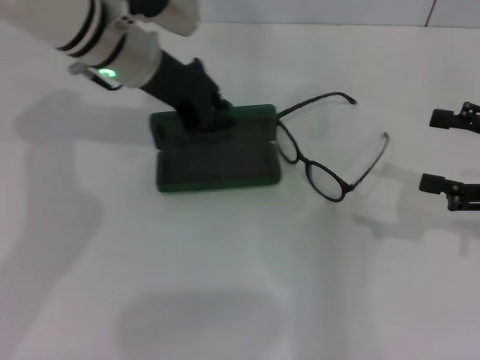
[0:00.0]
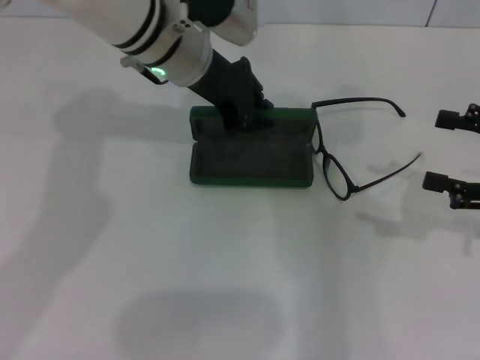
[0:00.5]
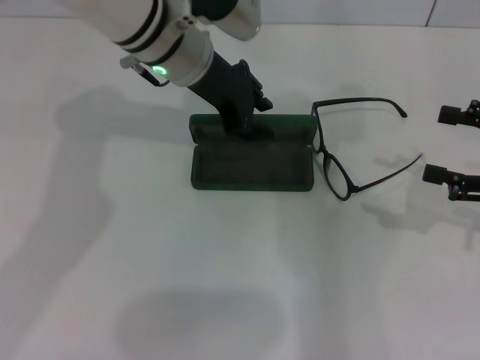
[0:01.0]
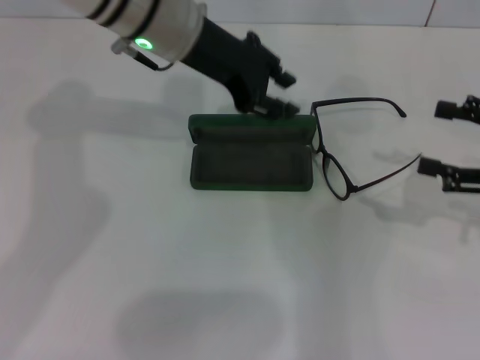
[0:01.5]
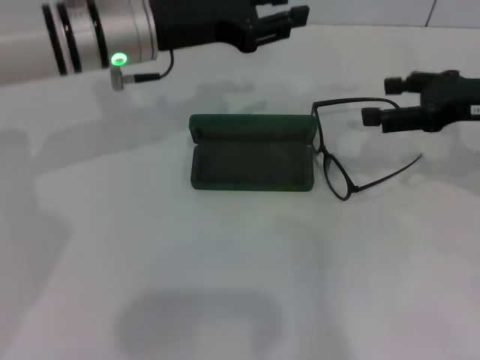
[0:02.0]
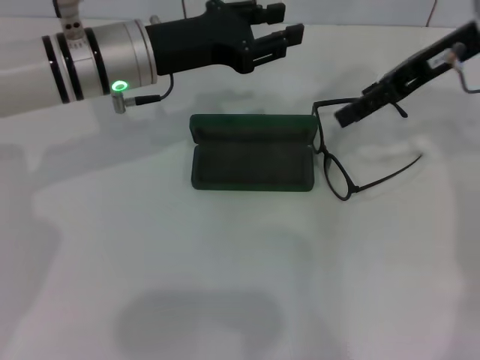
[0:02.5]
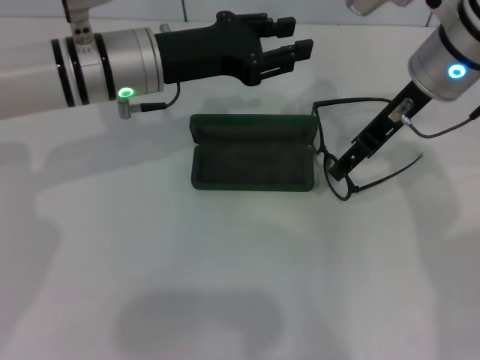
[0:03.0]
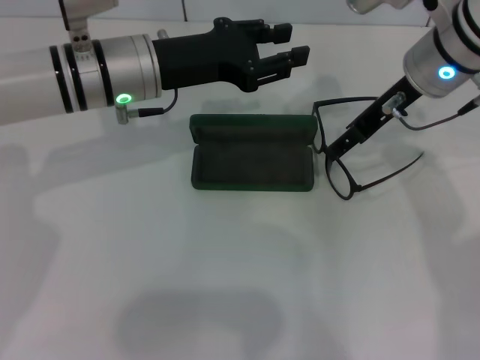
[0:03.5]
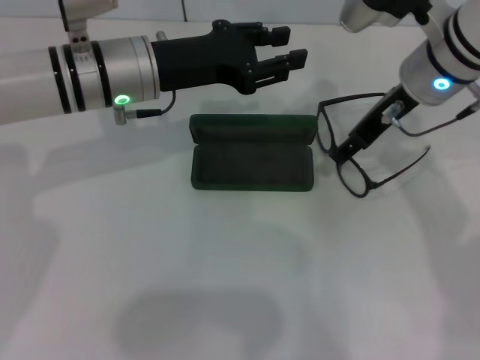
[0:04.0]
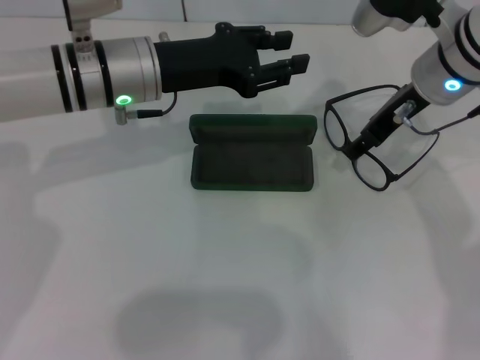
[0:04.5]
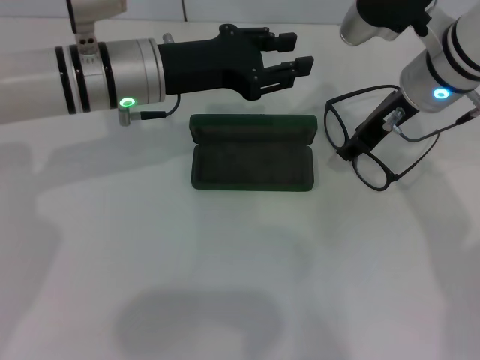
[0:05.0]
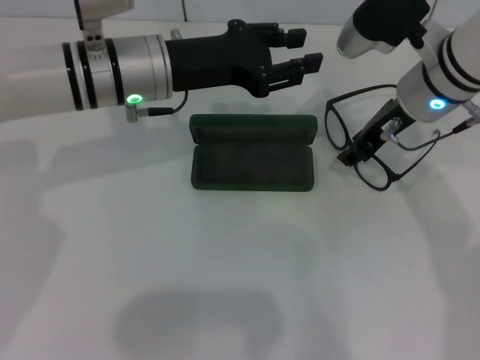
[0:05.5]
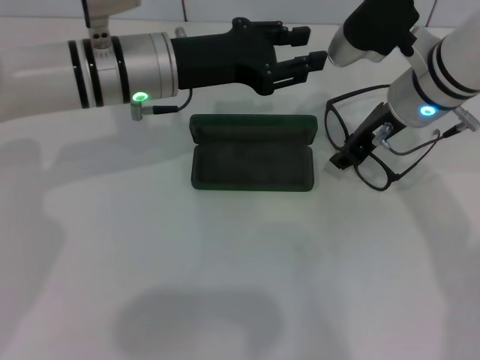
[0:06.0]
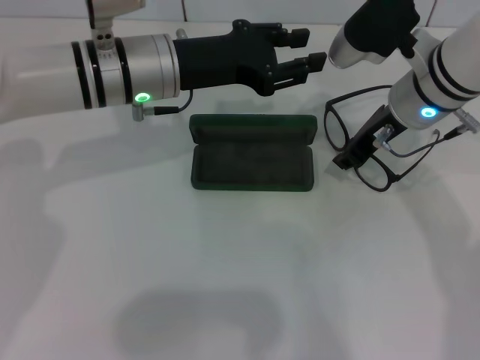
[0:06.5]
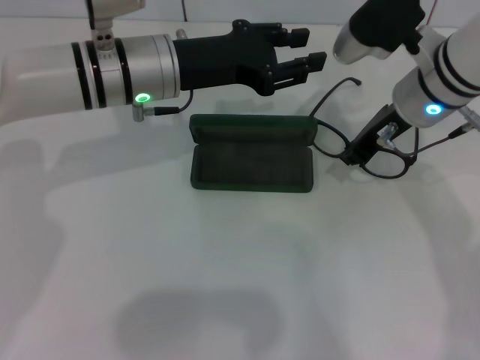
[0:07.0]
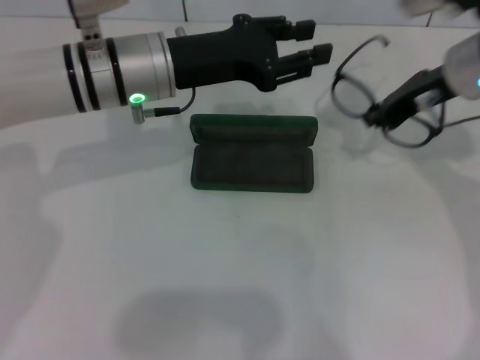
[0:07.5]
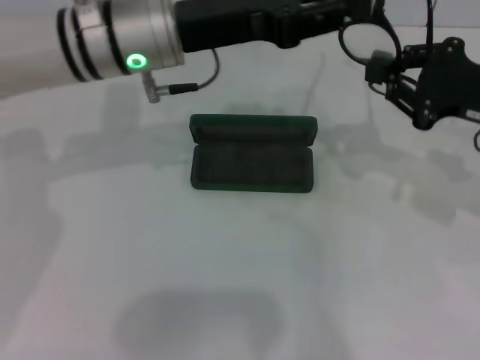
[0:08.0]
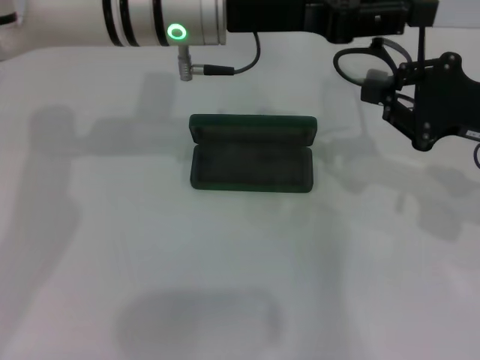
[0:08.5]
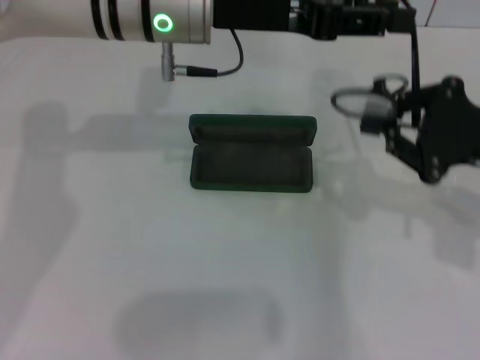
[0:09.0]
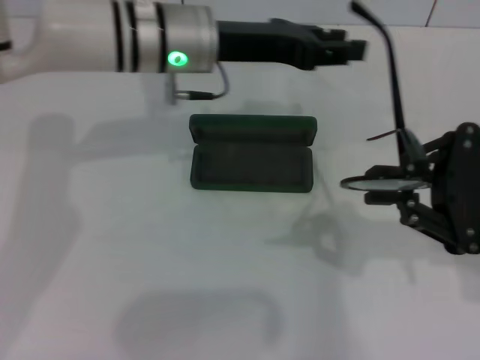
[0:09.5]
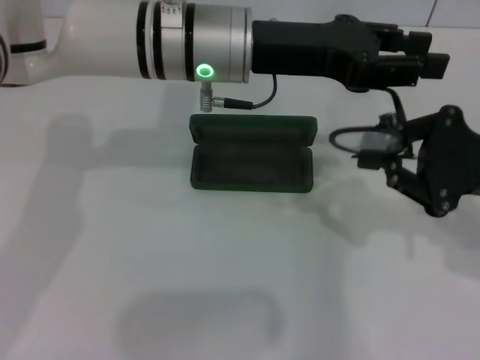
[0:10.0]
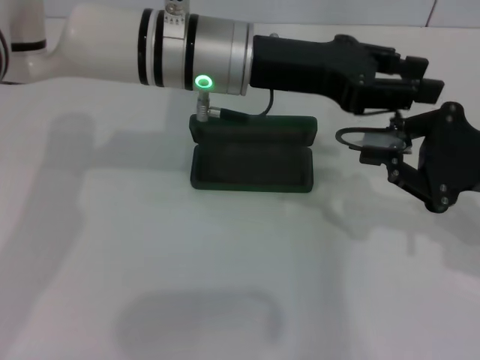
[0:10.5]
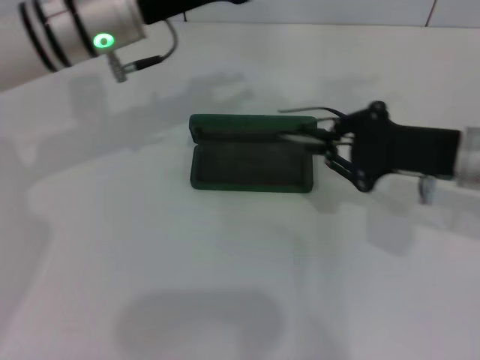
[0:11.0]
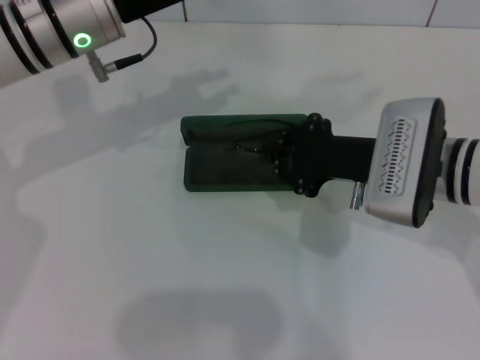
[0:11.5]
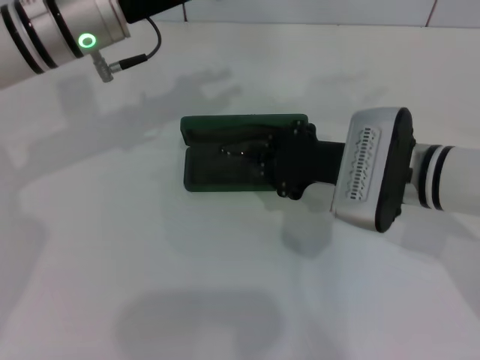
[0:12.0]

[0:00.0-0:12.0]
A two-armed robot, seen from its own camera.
Step, 0:01.5 to 0:07.0: Grab the eyeglass frame with your right hand.
Step, 0:07.5 to 0:10.0: Fold the frame with your left hand.
0:00.0 to 0:02.0: The left gripper opens up. The right gripper moves forward and to the left, approximately 10 cm.
0:02.0 to 0:04.0: The right gripper moves to the left, roughly 15 cm.
0:04.0 to 0:06.0: The right gripper closes its fingers.
0:06.0 to 0:08.0: The right gripper goes approximately 15 cm to the right and backward.
0:08.0 to 0:10.0: The left gripper travels to the right by some 5 cm.
0:10.0 to 0:12.0: The grippers both shift to the left by roughly 10 cm.

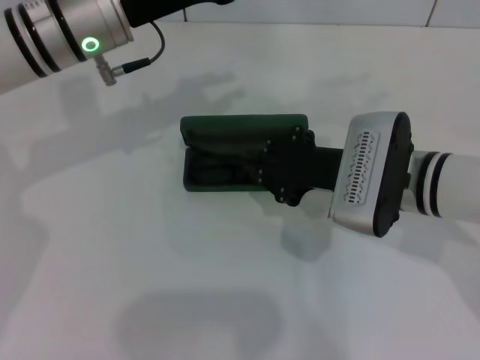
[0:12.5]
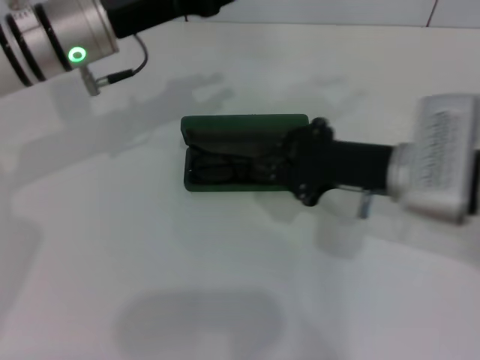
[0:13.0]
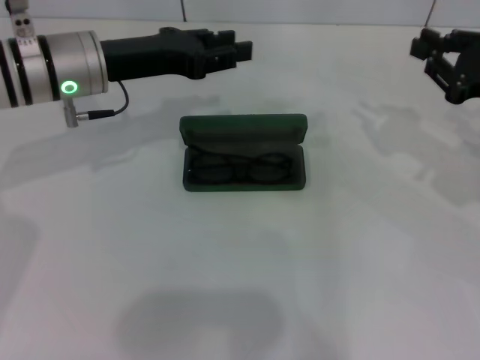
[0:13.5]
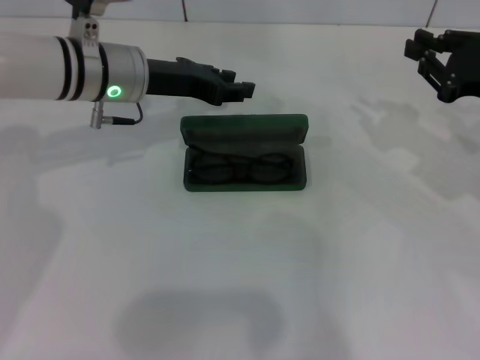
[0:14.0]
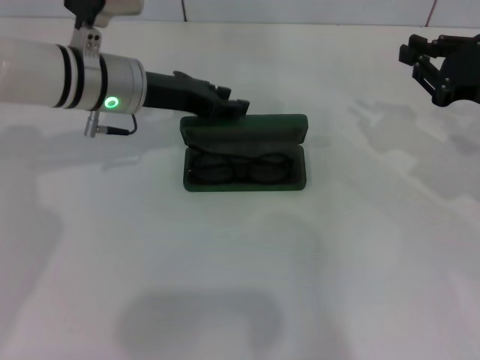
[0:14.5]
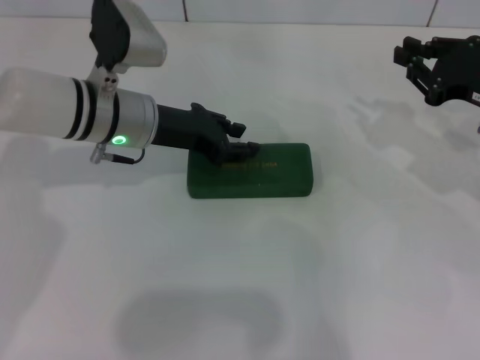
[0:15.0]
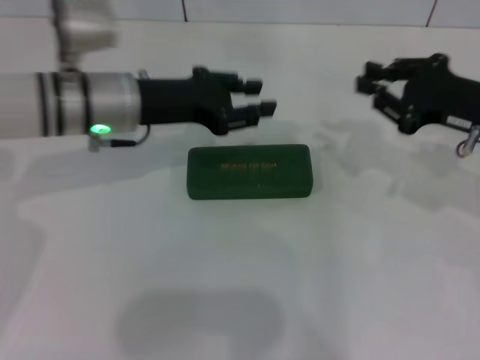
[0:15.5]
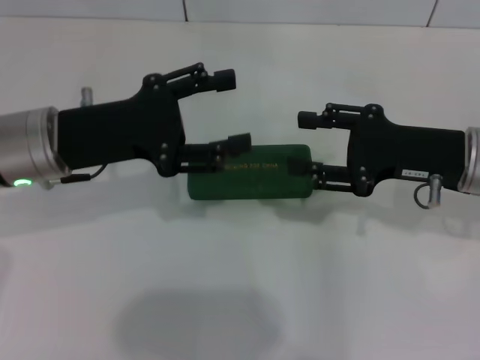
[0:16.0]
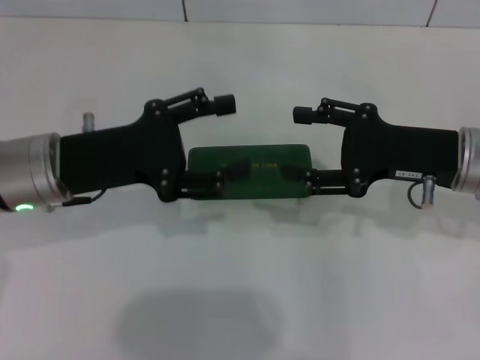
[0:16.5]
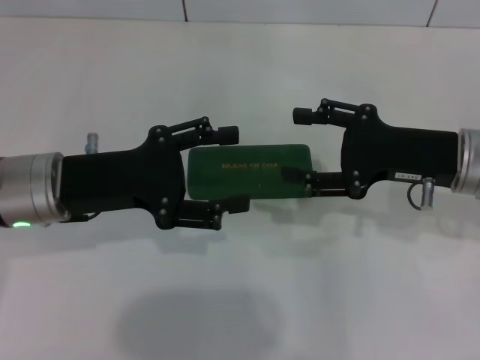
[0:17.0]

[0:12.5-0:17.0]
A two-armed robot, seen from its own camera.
Step, 0:13.0 to 0:15.0: Close the glasses case with your left hand.
0:12.5 to 0:14.5: The right gripper travels to the right by roughly 15 cm, while the left gripper moves downward, about 5 cm.
0:14.5 to 0:17.0: The right gripper moves to the left, some 10 cm, and opens, while the left gripper travels backward and to the left by approximately 15 cm, and opens.
